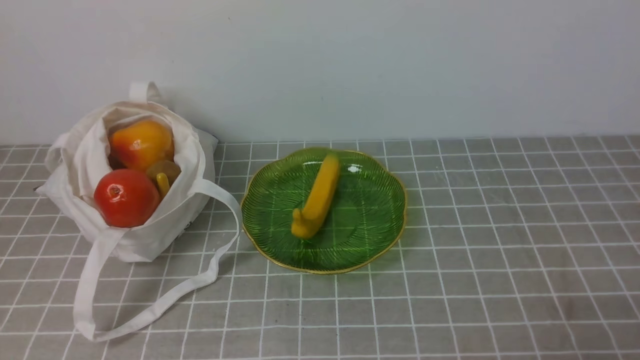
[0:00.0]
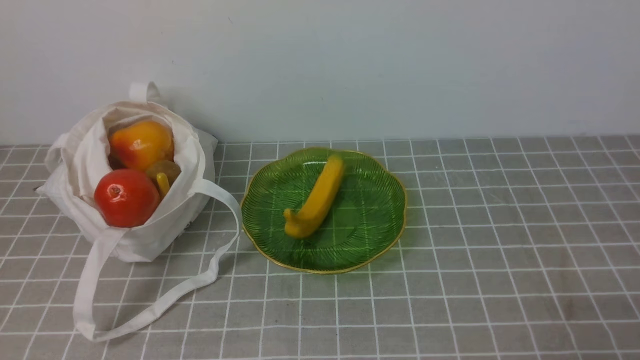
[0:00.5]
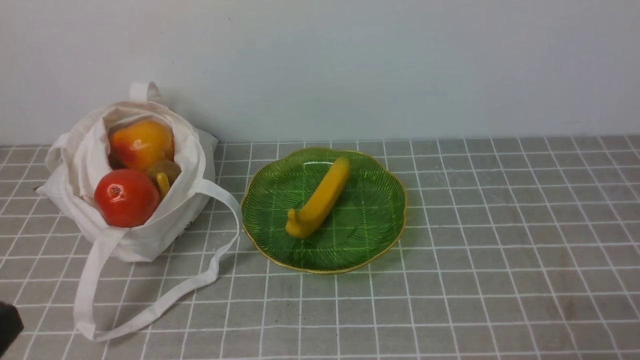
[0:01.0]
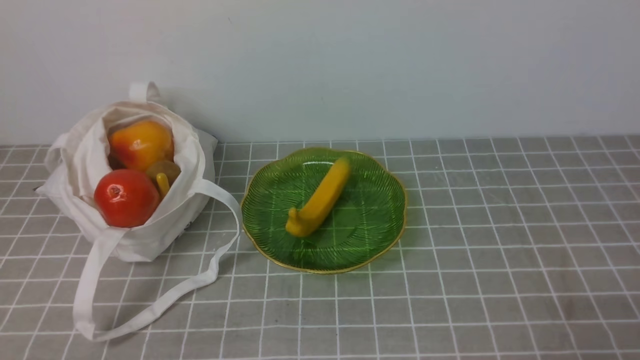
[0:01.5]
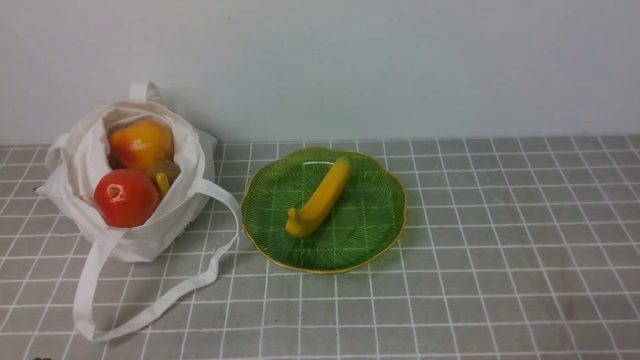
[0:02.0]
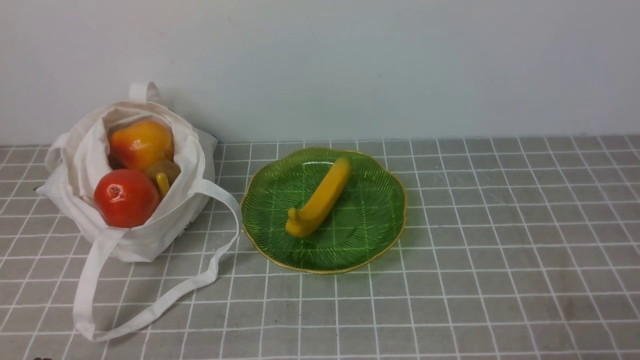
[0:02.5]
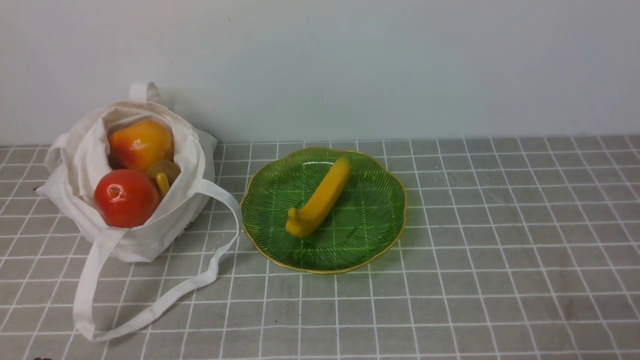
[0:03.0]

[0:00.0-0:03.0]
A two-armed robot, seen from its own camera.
0:01.5 to 0:03.0: The two grippers keep their place.
